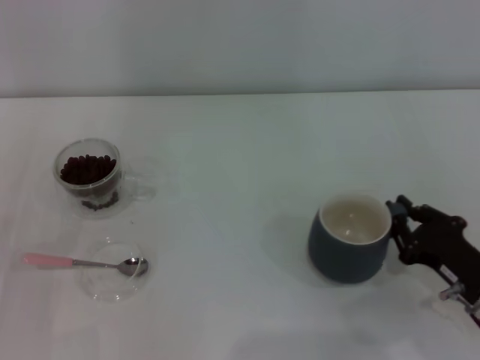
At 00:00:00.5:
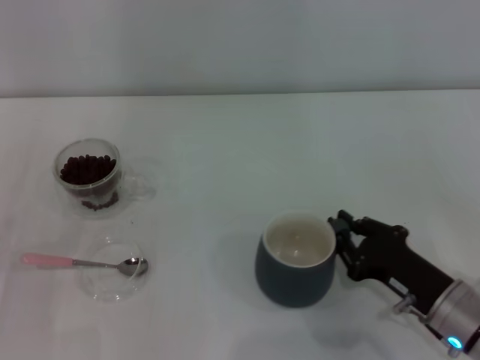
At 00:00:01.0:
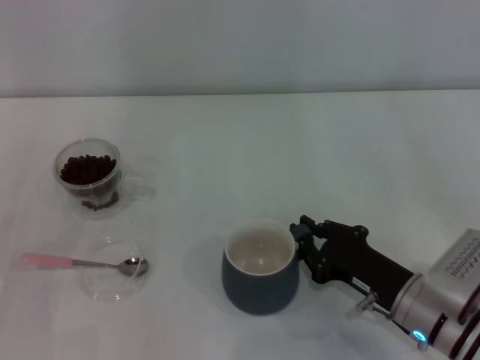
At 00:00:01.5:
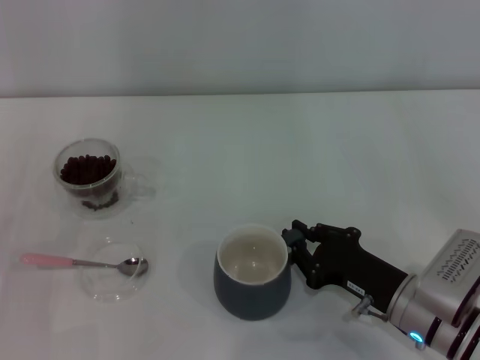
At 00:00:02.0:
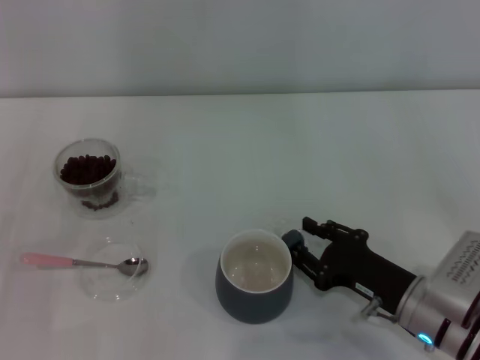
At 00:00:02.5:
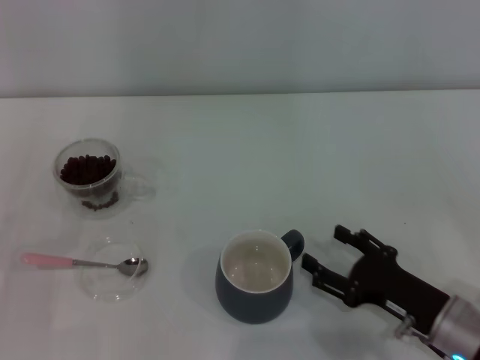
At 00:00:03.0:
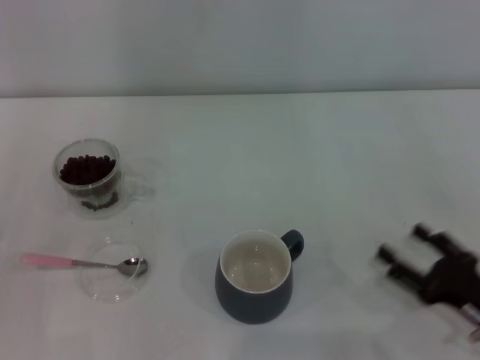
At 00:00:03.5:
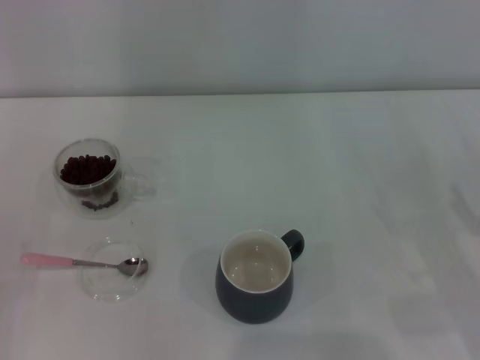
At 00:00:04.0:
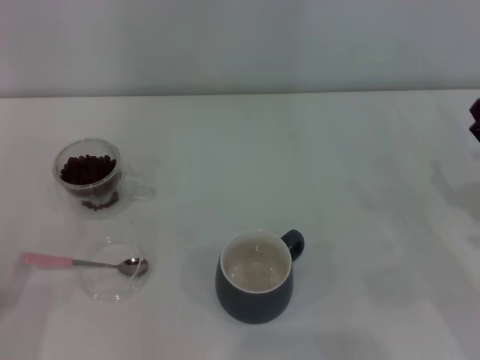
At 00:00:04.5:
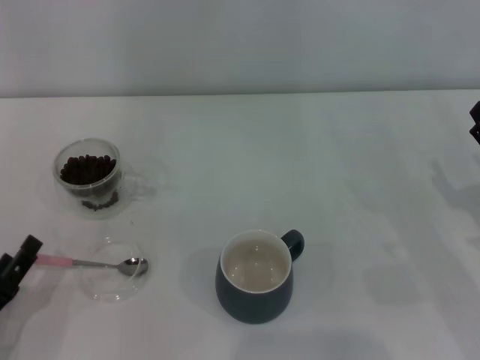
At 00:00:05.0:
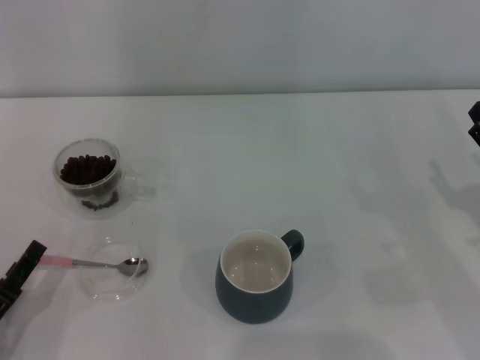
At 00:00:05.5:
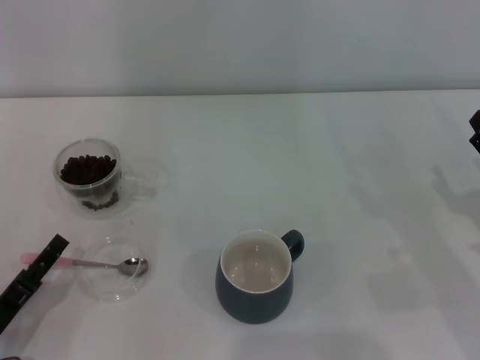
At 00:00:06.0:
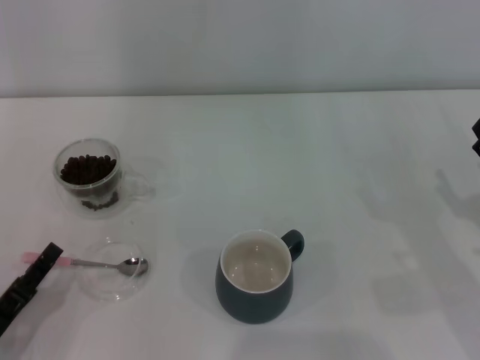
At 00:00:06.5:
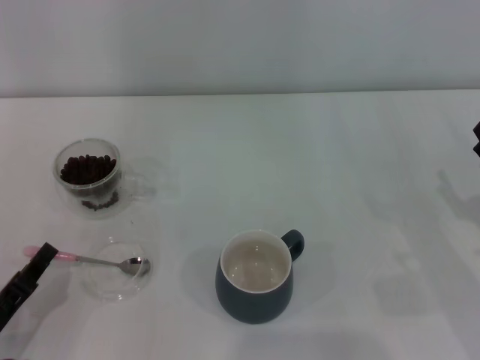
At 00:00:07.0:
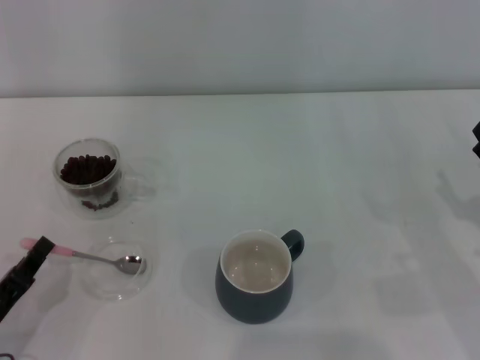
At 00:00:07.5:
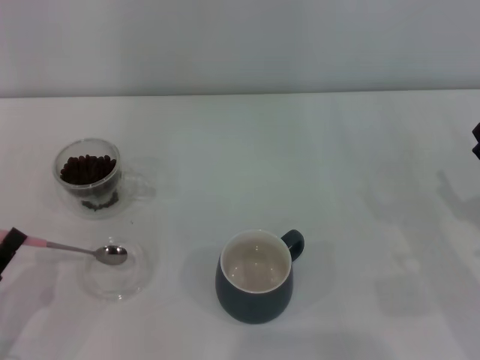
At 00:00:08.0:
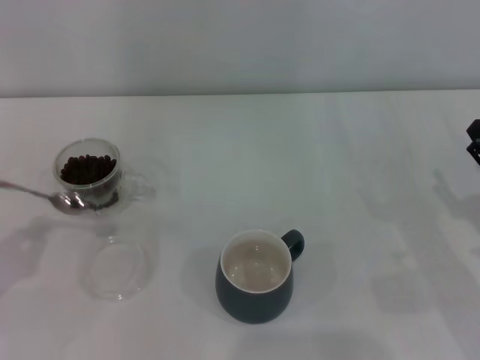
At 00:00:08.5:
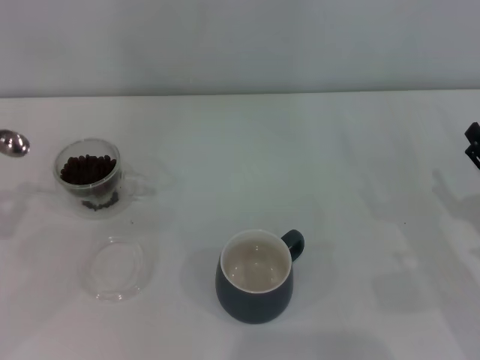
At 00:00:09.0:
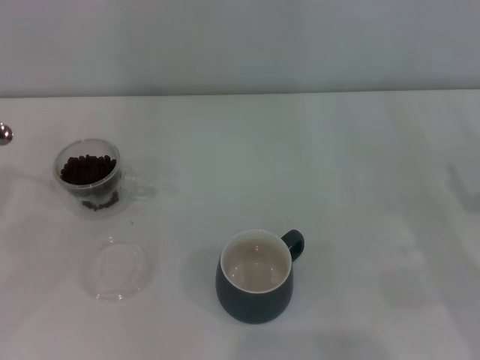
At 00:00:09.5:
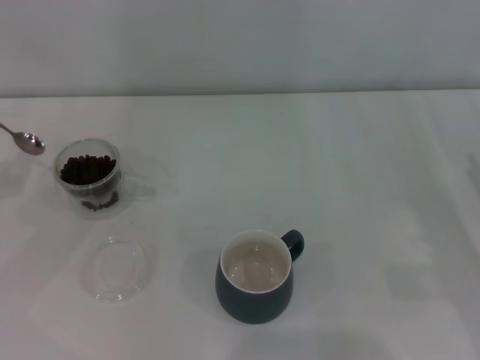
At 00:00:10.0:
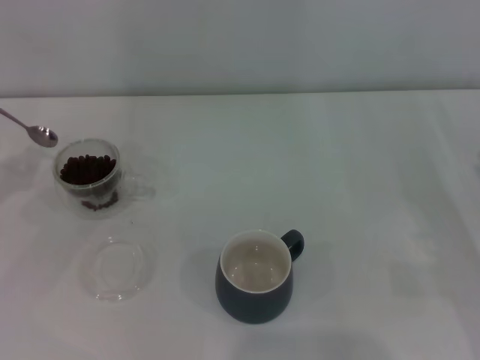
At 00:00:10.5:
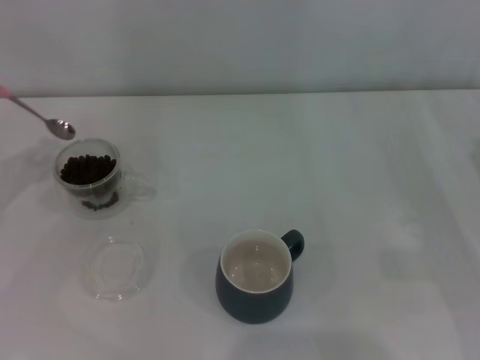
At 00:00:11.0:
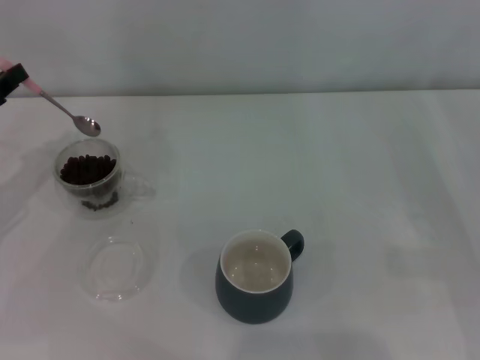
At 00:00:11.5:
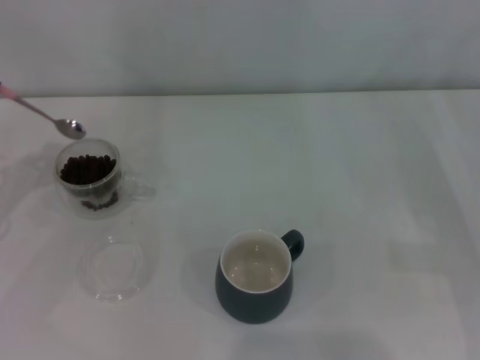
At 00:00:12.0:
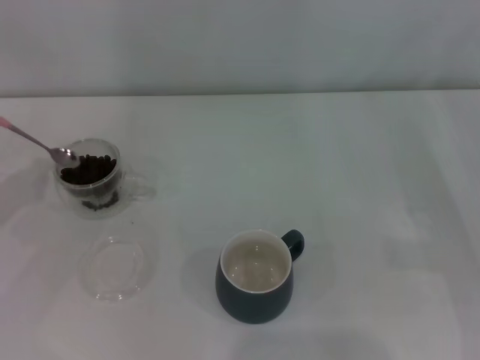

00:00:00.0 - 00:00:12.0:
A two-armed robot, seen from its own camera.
Task of the whole recording: Use a pink spoon to take out the coffee beans from the glass and pour them into the gray cup.
Step, 00:00:03.0 - 00:00:07.5: Pick up the spoon with the right gripper.
00:00:00.0 - 00:00:02.0: The right gripper heads to the left, covering roughly 5 cm.
00:00:02.0 - 00:00:04.0: The left gripper shifts by about 5 cm. The right gripper shifts about 10 cm to the right, and opens.
00:00:06.0 - 00:00:08.0: The left gripper travels upward and to the left by roughly 10 cm, and closes its fingers.
00:00:08.0 - 00:00:10.0: The left gripper shifts roughly 15 cm forward and upward.

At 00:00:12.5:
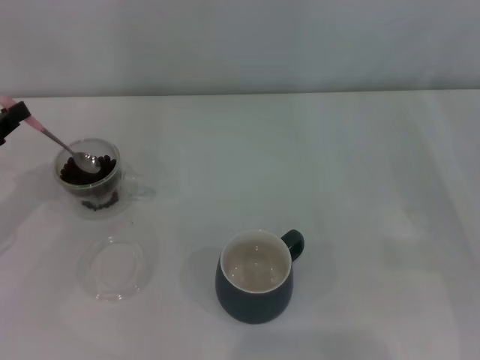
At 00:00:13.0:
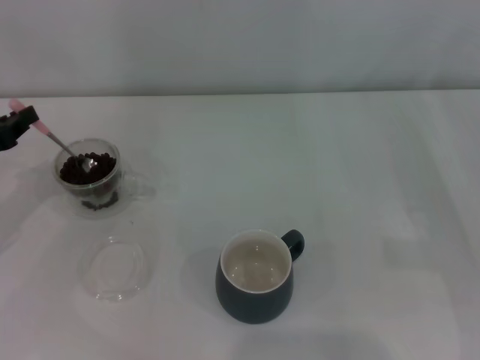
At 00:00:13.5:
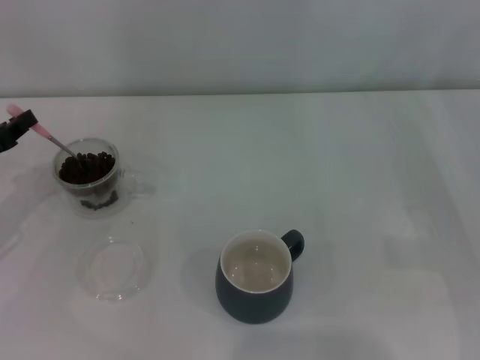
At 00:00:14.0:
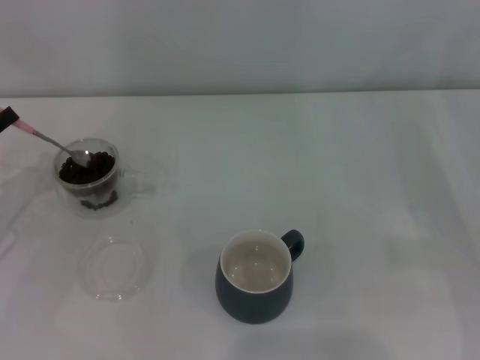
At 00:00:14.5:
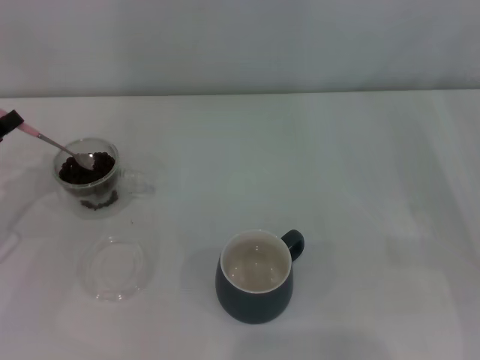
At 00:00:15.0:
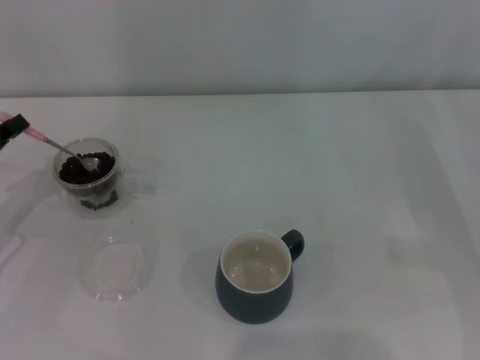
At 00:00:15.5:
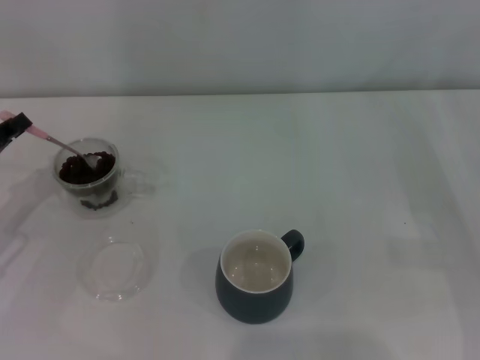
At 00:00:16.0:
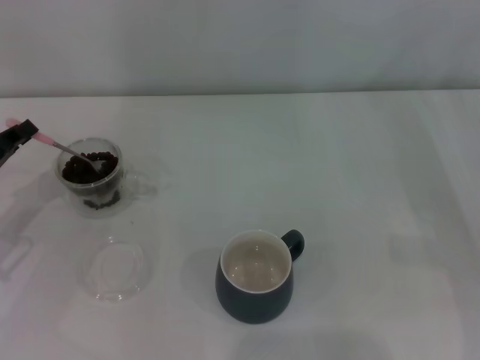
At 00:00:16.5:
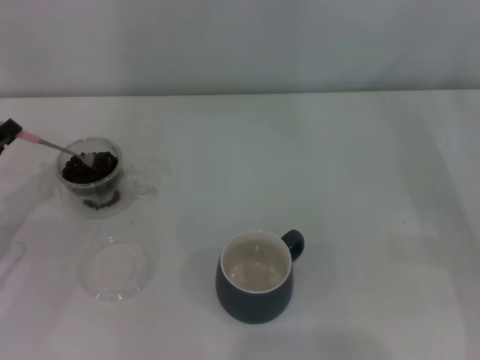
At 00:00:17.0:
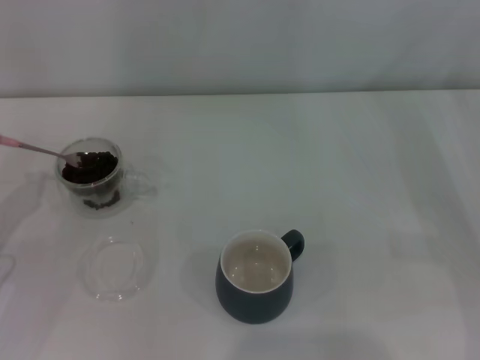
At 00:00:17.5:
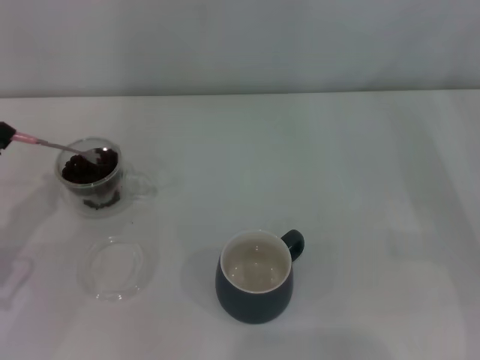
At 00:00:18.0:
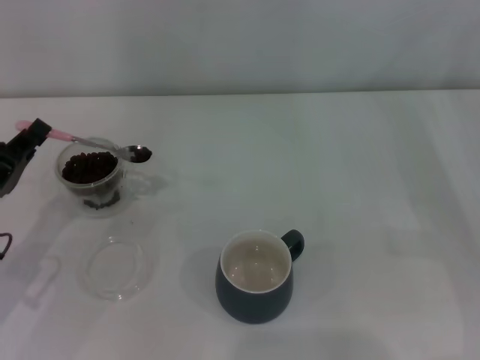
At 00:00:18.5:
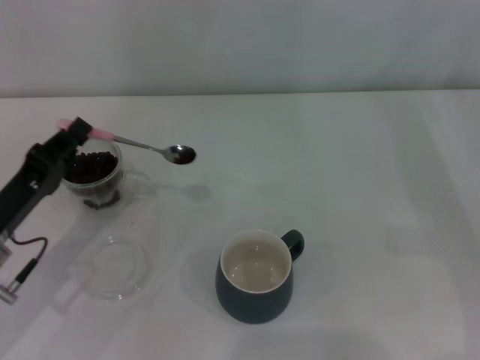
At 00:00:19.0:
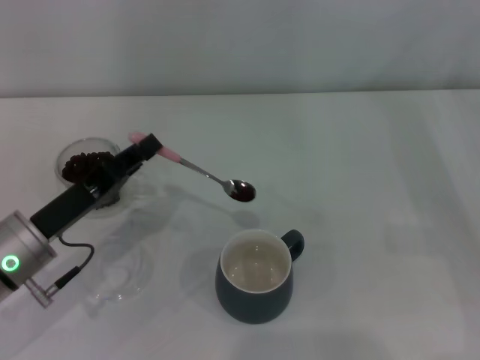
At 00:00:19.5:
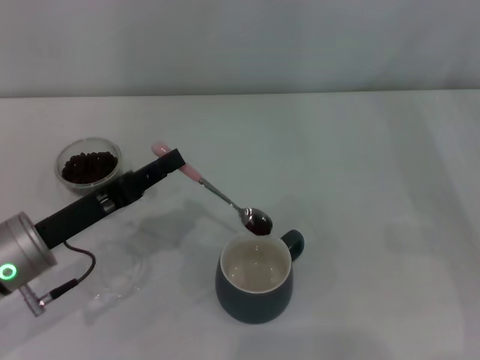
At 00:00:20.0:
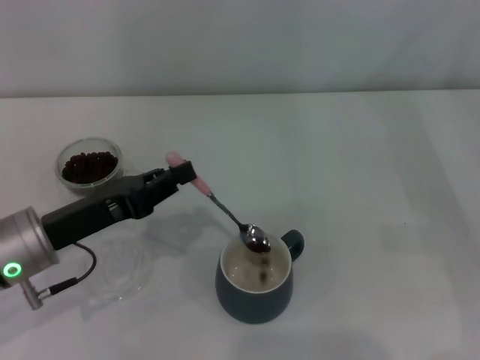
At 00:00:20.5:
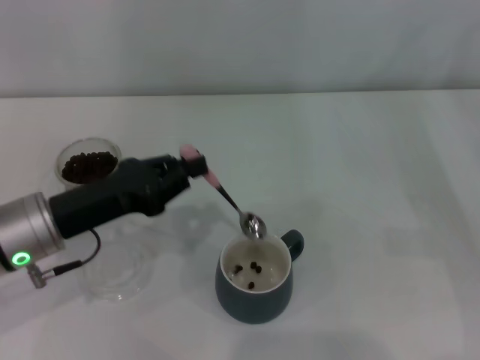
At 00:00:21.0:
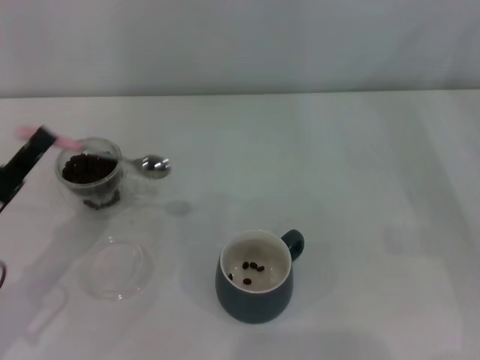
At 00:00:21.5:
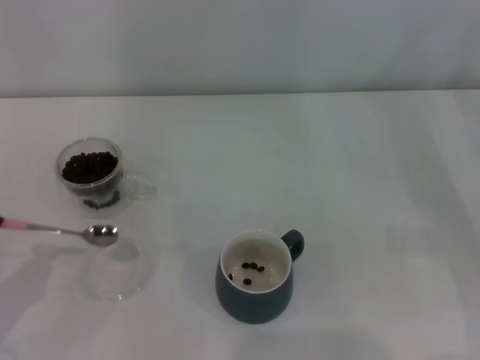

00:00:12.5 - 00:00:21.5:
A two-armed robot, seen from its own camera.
Task of the whole recording: Use a pink spoon to take out the coffee beans from the glass and pour them into the gray cup.
00:00:14.5 - 00:00:17.0: The grippers move only a little.
00:00:17.0 - 00:00:19.5: The left gripper moves to the right, approximately 10 cm.
00:00:19.5 - 00:00:21.5: The left gripper is displaced backward and to the left by some 15 cm.

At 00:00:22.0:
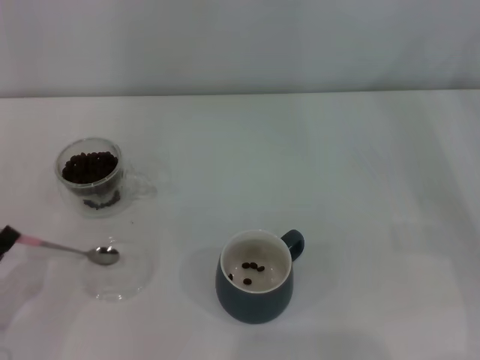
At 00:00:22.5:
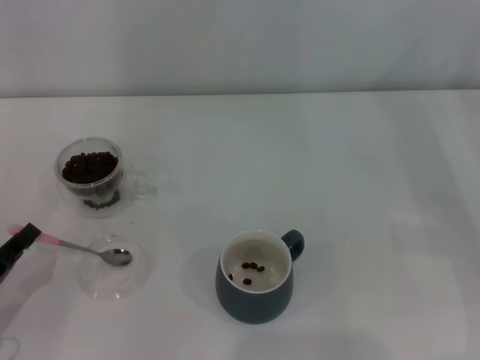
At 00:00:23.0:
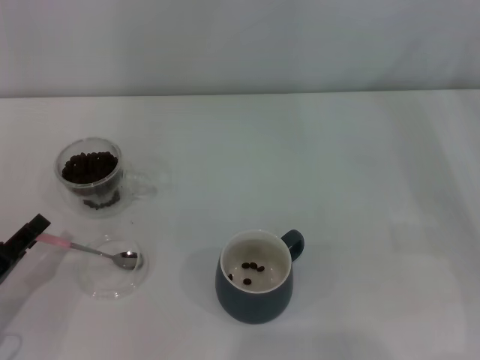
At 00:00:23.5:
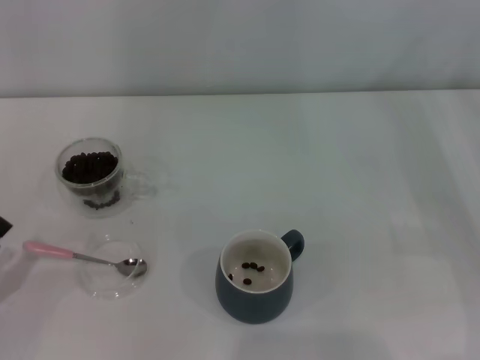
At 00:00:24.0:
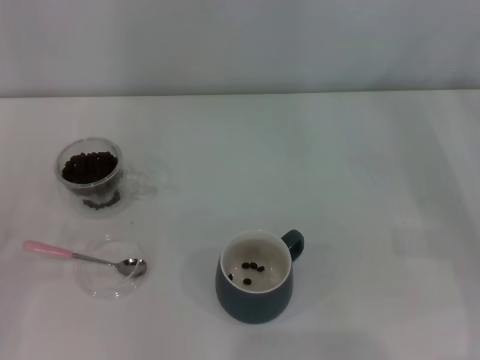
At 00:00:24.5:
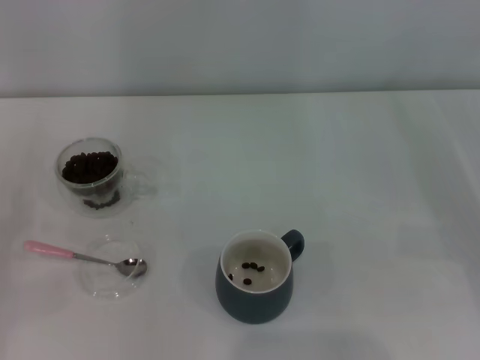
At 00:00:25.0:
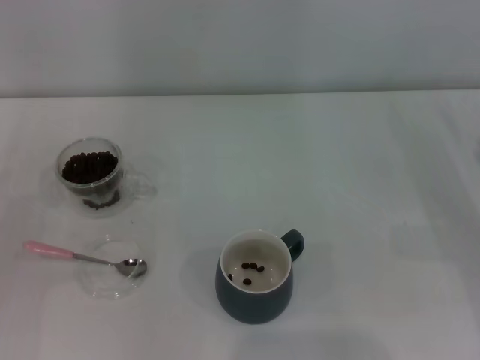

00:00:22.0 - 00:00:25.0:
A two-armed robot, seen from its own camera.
Task of the whole recording: Use a pink spoon to take out the coffee beans from the glass and pour them into the gray cup.
00:00:22.0 - 00:00:23.5: The left gripper opens its fingers.
